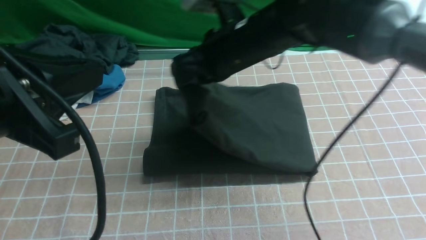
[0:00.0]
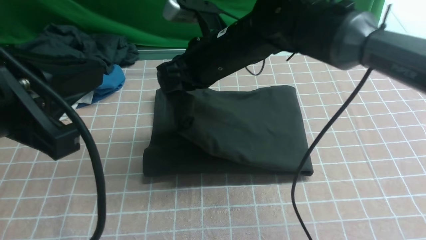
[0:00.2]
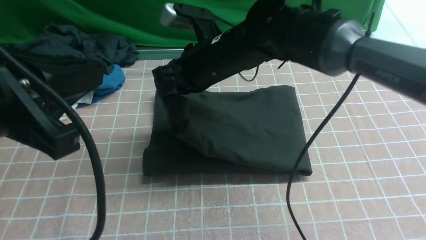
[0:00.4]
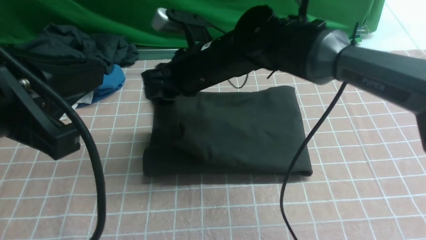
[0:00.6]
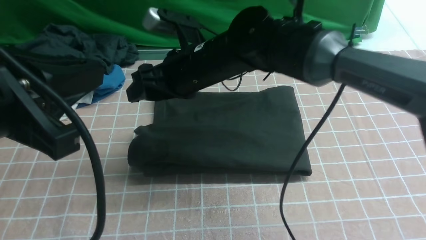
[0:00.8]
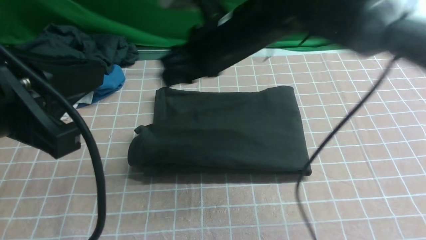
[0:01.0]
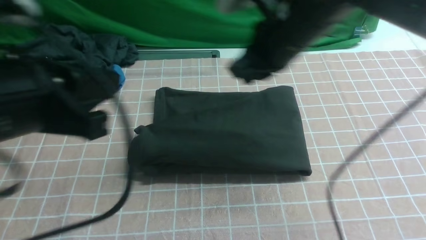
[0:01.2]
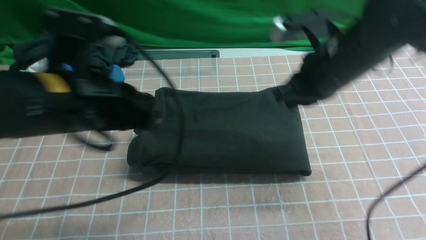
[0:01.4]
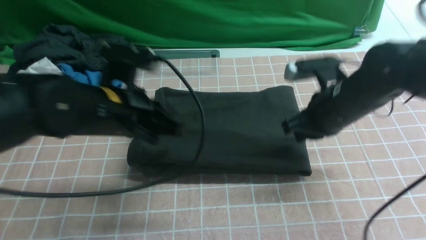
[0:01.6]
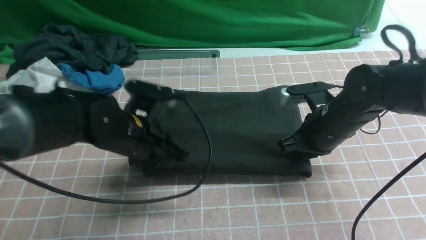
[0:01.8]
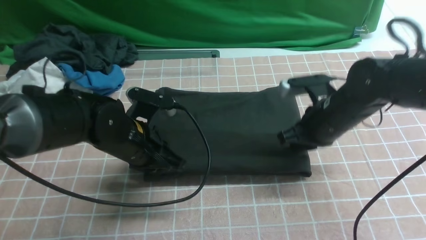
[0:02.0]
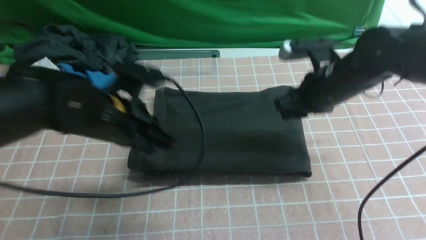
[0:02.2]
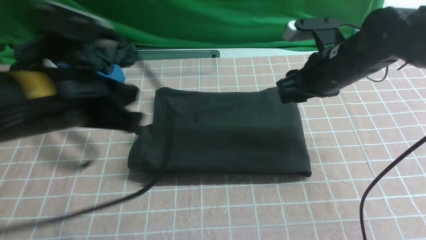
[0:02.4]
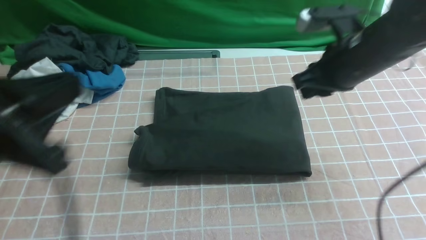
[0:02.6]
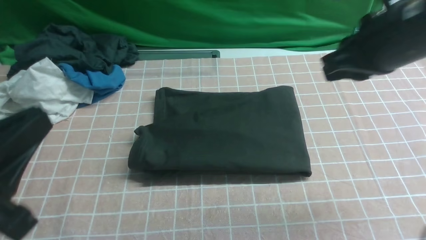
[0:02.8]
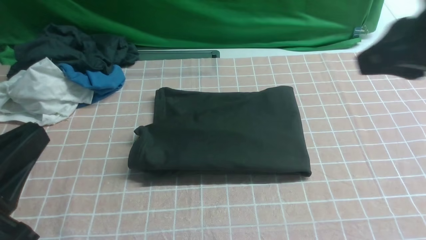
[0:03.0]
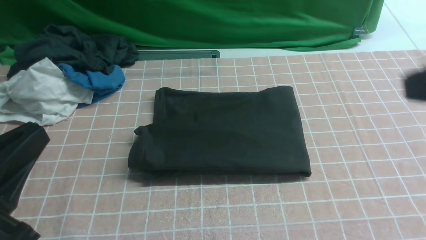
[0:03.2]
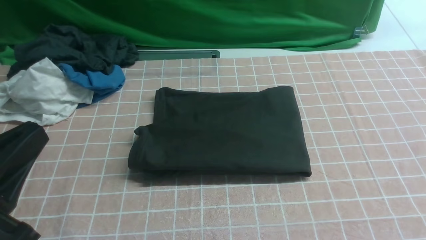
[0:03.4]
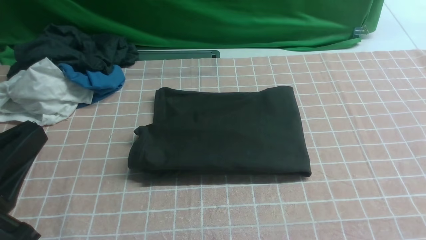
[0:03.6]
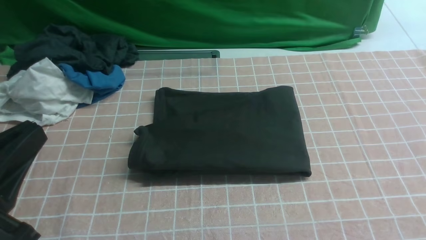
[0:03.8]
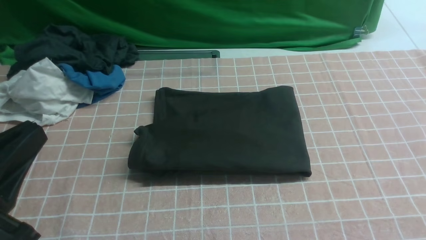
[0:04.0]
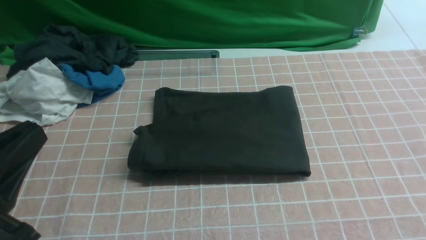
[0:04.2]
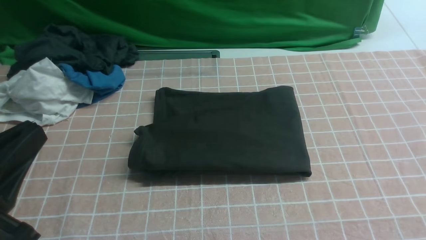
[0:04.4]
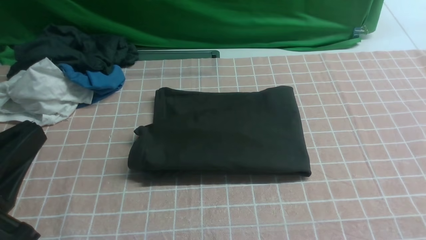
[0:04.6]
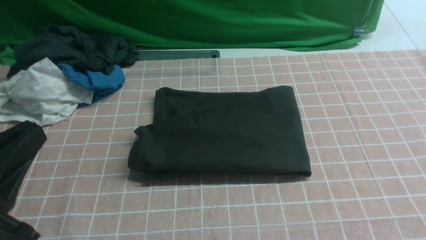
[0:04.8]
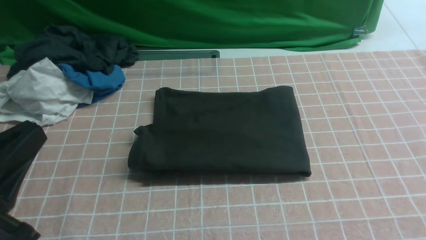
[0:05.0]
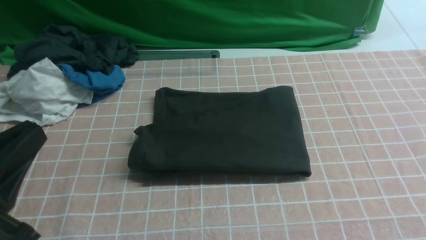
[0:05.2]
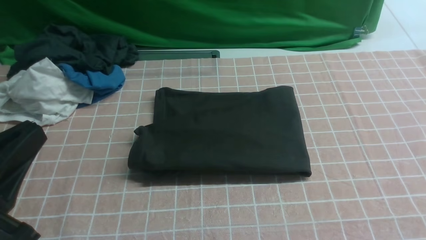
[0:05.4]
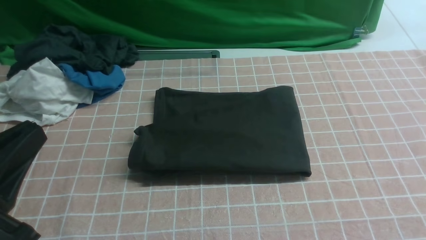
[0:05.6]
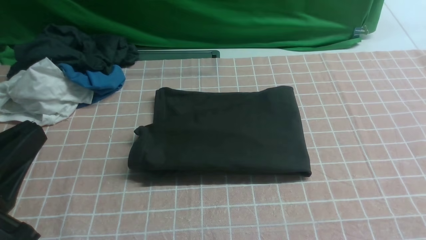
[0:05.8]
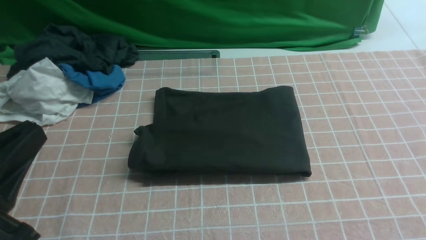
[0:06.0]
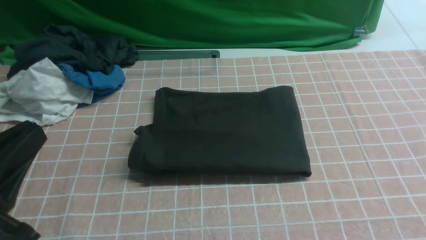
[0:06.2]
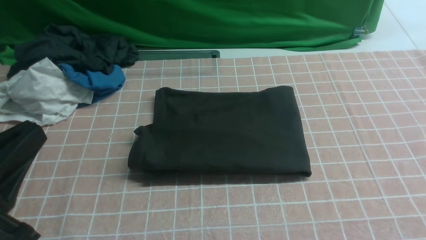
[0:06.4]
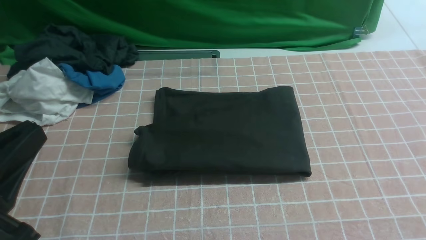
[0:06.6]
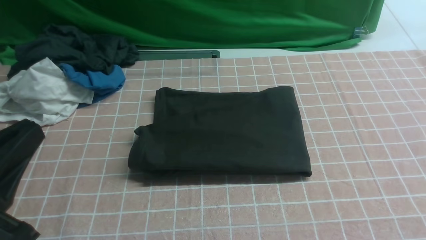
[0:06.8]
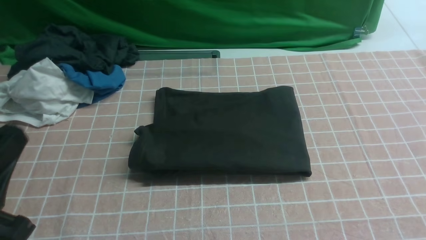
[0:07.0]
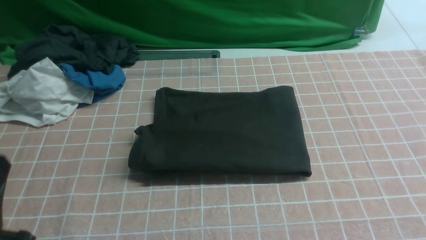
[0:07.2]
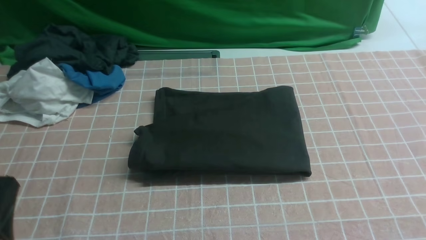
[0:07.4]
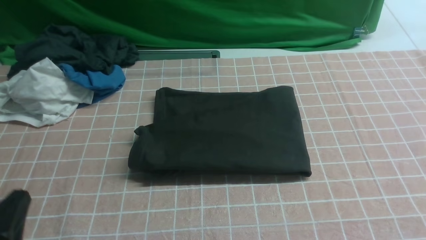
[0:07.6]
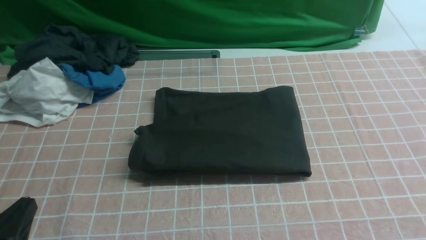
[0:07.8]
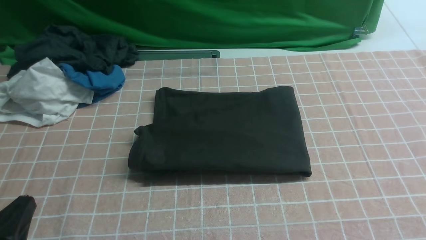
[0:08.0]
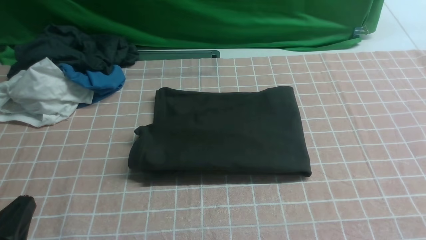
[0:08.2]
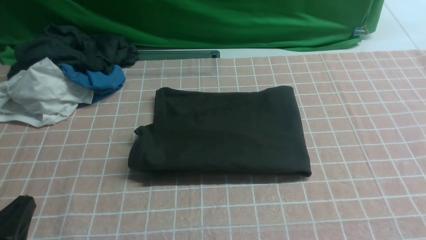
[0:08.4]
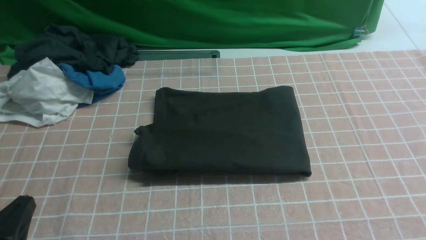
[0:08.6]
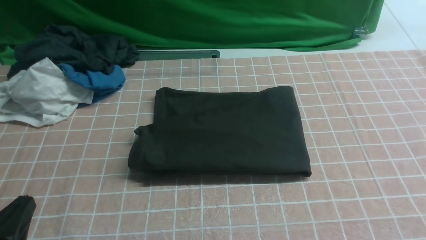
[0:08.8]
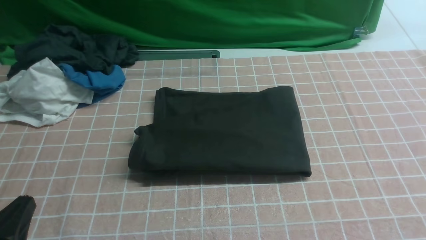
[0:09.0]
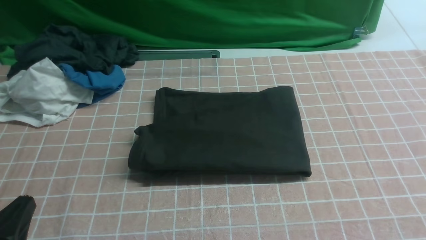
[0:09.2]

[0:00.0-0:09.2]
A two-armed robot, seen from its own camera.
0:00.0 to 0:01.6: The left gripper moves downward and forward, roughly 20 cm, while the right gripper travels to the right and downward by approximately 15 cm, and opens and closes again.
0:01.6 to 0:03.0: The left gripper is displaced backward and to the left by about 20 cm, while the right gripper travels upward and backward by roughly 25 cm, and opens and closes again.
0:03.0 to 0:04.6: The right gripper is displaced downward, backward and to the right by approximately 25 cm.
0:06.2 to 0:07.6: The left gripper goes roughly 10 cm downward.
0:07.6 to 0:09.2: Neither gripper changes place.

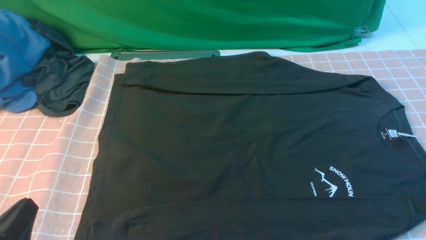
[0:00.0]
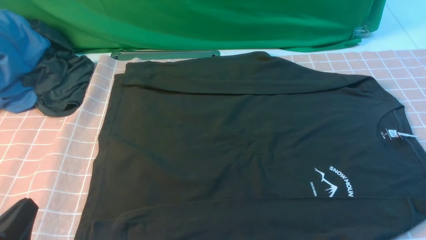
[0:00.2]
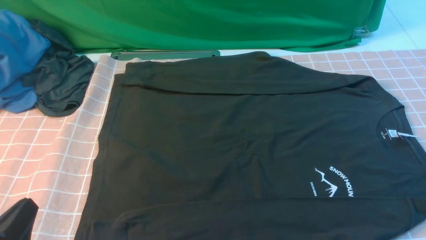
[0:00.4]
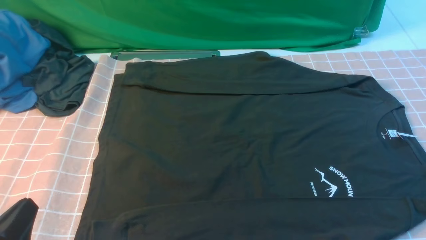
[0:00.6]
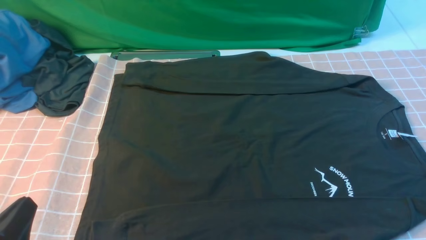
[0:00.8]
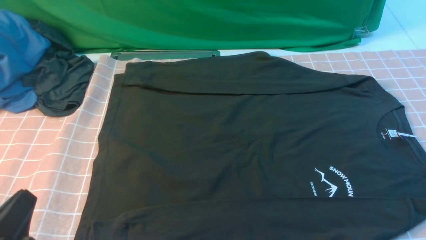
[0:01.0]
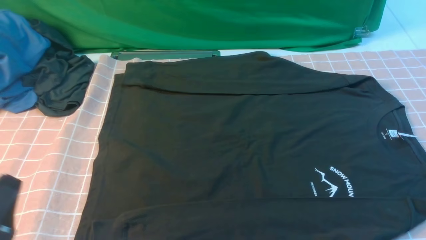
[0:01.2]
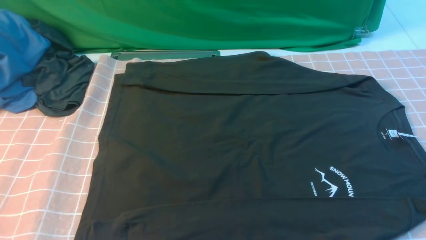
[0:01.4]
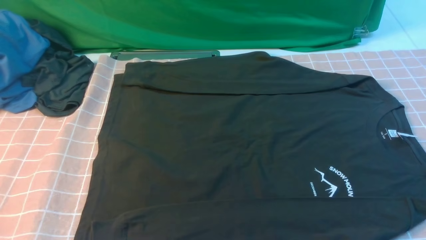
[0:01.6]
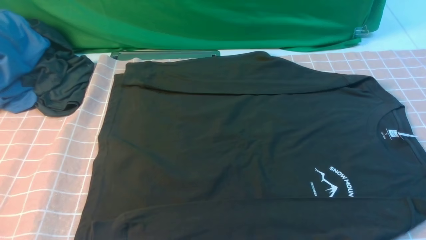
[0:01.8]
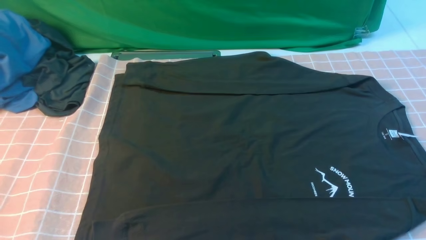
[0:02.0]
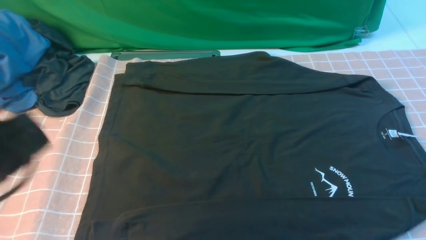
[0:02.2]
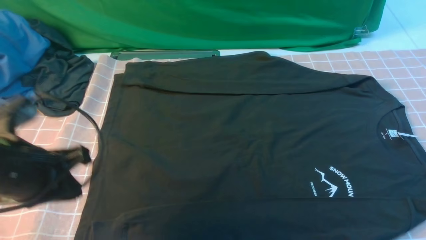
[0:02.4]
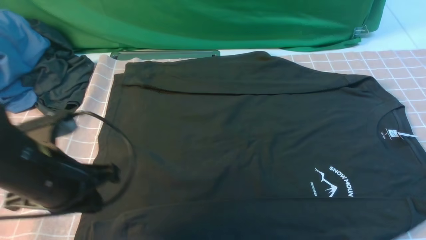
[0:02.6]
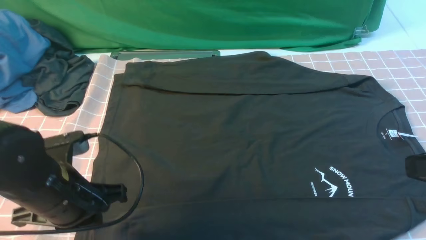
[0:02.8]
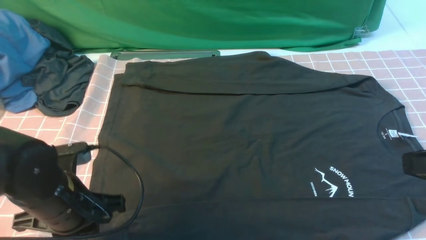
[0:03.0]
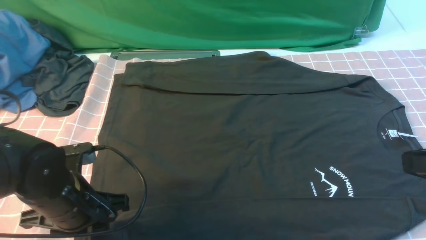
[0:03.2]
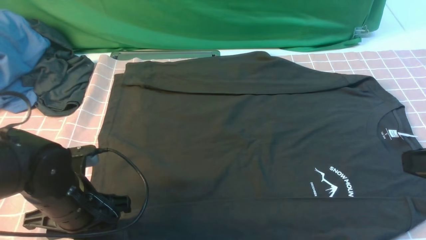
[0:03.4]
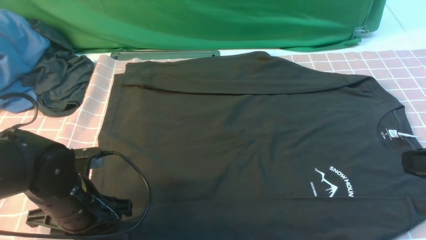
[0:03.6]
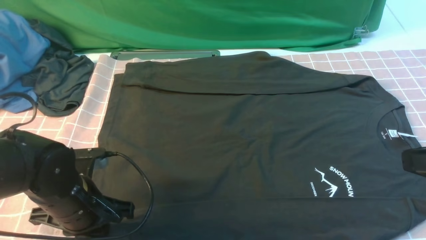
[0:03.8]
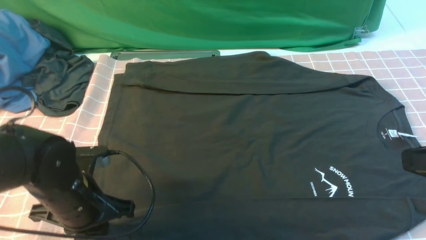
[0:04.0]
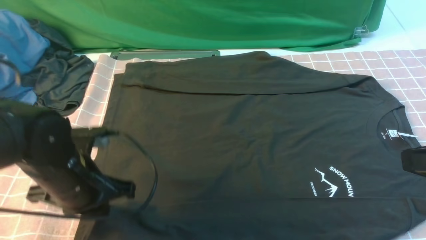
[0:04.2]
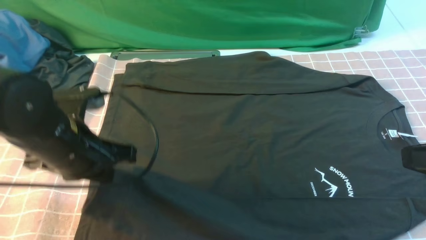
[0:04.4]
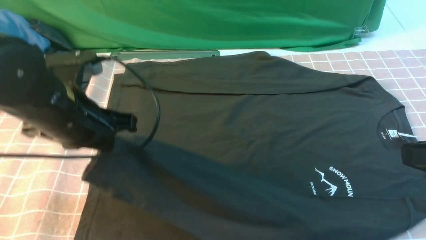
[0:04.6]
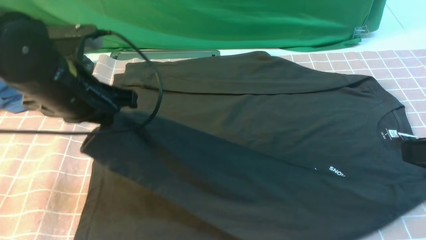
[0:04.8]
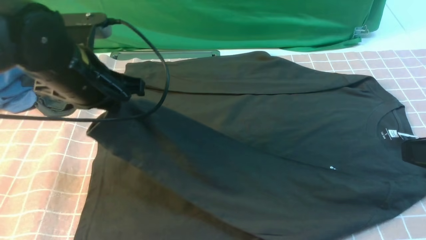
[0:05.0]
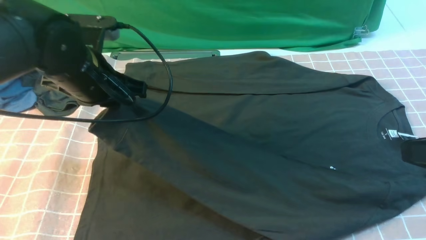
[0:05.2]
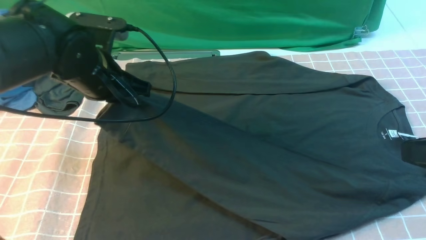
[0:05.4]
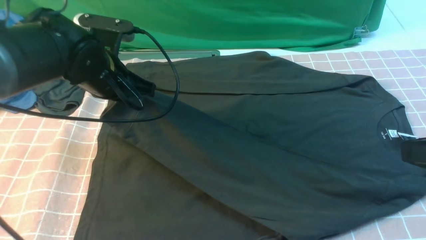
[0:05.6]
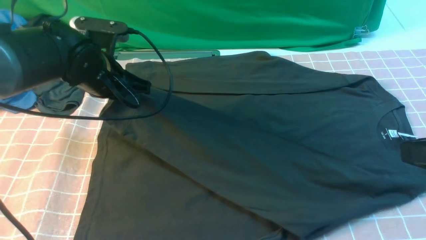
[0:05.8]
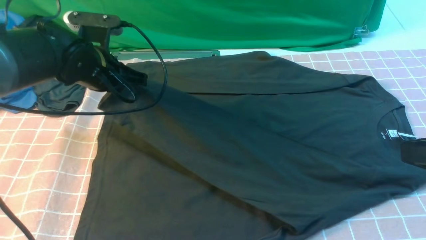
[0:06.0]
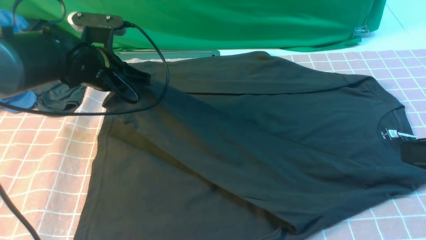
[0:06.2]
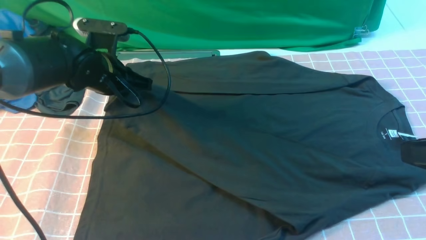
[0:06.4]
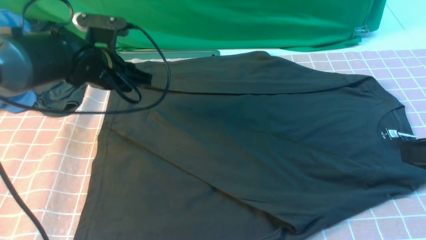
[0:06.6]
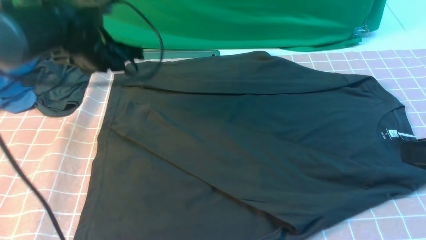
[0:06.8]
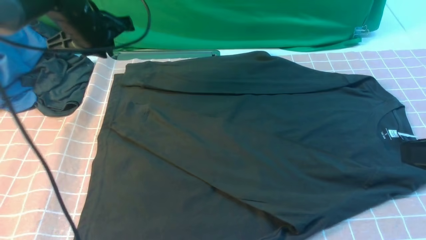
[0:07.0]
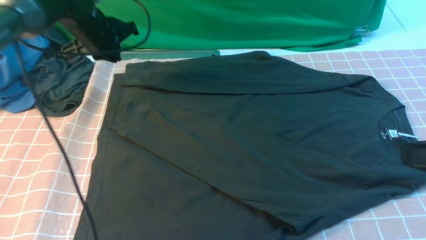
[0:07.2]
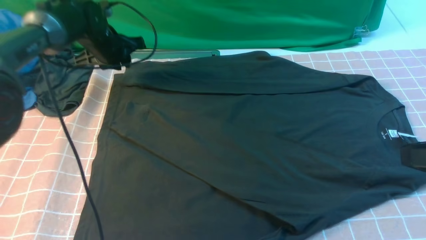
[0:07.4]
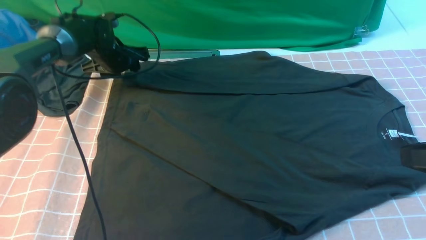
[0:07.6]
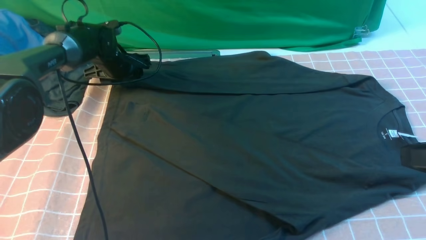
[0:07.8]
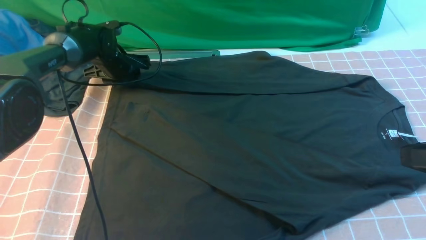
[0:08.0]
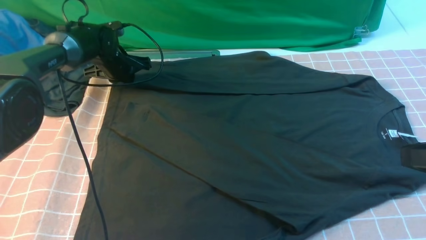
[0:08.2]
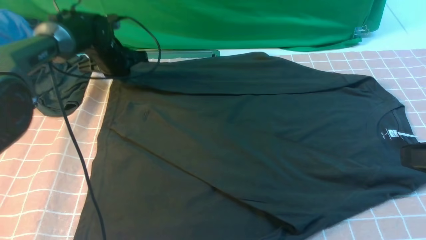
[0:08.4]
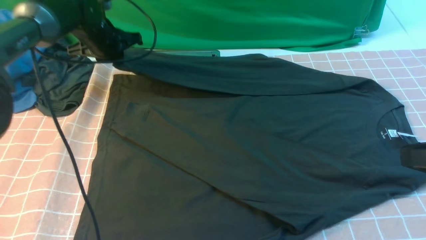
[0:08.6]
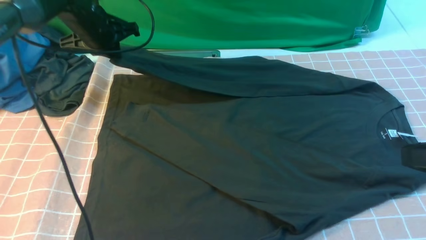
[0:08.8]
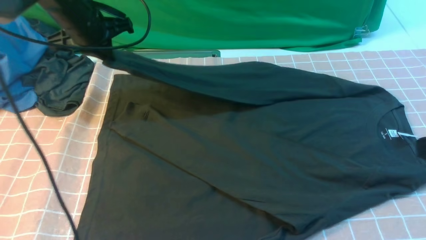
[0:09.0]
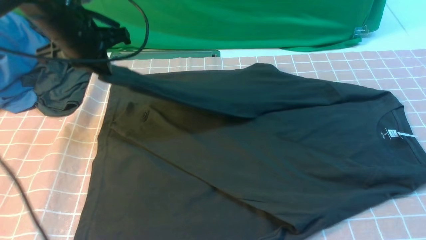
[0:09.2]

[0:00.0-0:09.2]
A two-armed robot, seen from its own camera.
Step, 0:00.0 to 0:04.0: use the left arm to clamp the cuff closest to it.
Step, 0:04.2 to 0:06.4: use the left arm to drag and place the cuff at the centered position on the left edge of the fabric.
Step, 0:06.6 to 0:08.2: use the left arm to clamp the cuff farthest from it.
0:00.0 to 0:01.6: The left gripper shifts approximately 5 cm upward.
0:01.6 to 0:03.0: The left gripper heads forward and to the right, covering some 15 cm, while the right gripper heads upward and forward, covering some 15 cm, and closes its fingers.
0:03.0 to 0:04.6: The left gripper shifts roughly 10 cm upward and forward, and opens, then closes again.
0:04.6 to 0:06.2: The left gripper goes roughly 10 cm forward.
0:06.2 to 0:07.6: The left gripper travels forward and downward by some 15 cm, and opens its fingers.
0:07.6 to 0:09.2: The left gripper travels backward and upward by approximately 20 cm, and closes its fingers.
